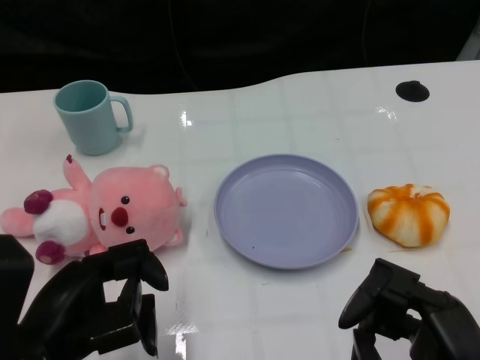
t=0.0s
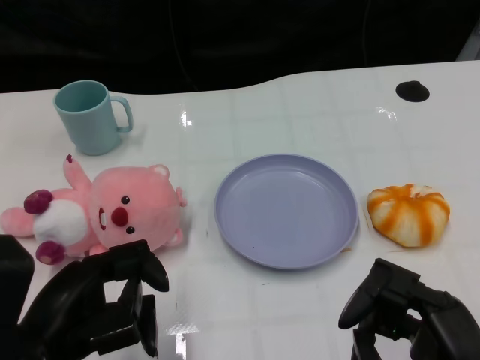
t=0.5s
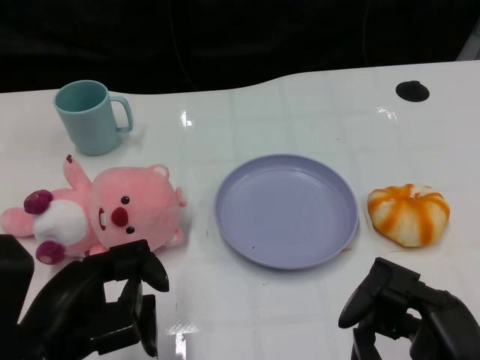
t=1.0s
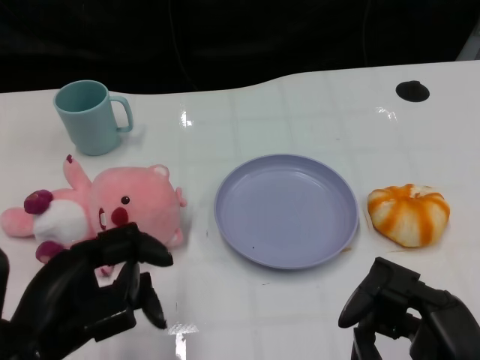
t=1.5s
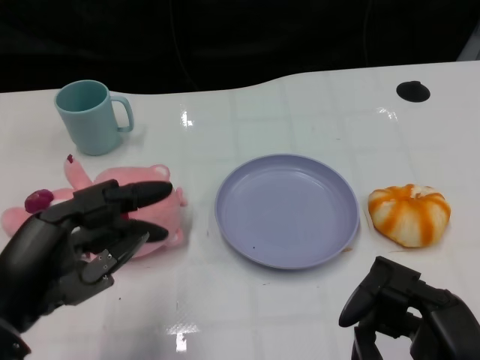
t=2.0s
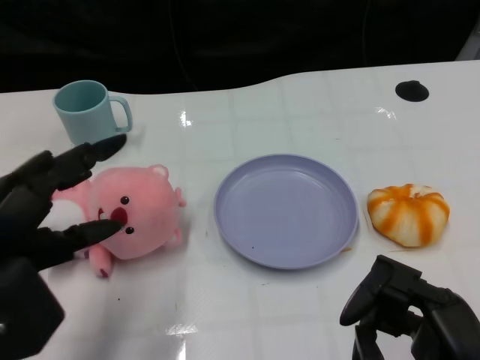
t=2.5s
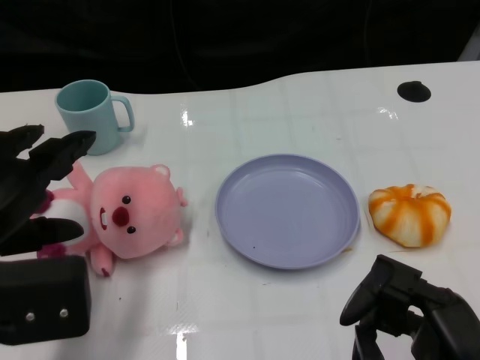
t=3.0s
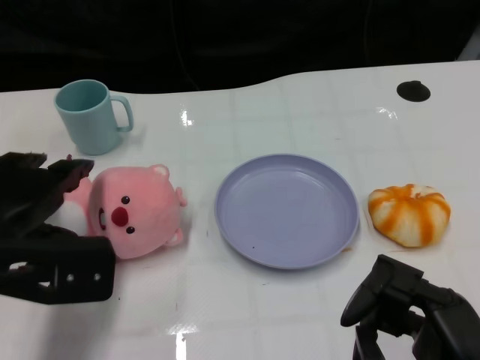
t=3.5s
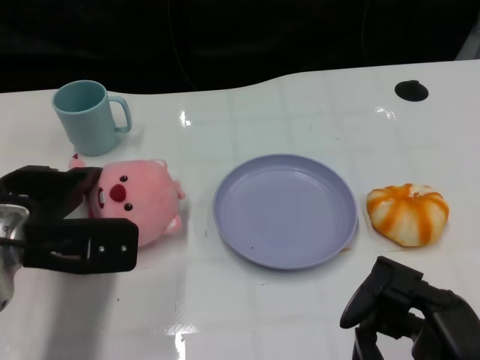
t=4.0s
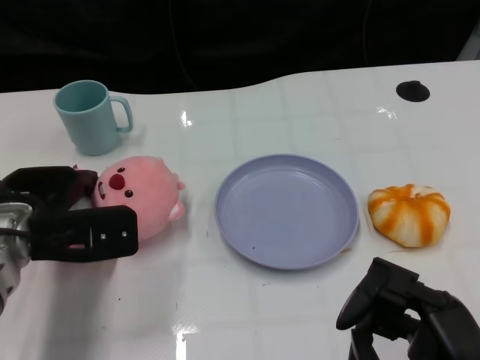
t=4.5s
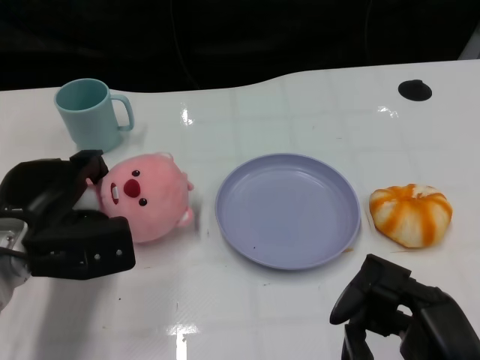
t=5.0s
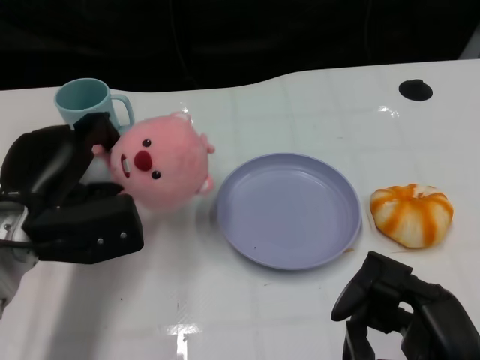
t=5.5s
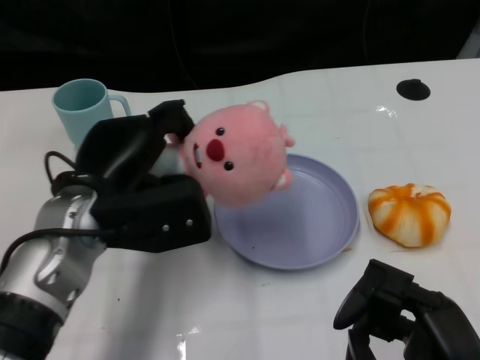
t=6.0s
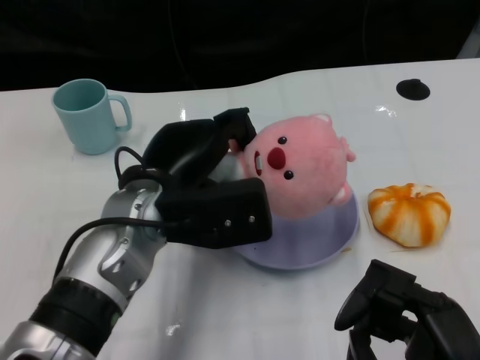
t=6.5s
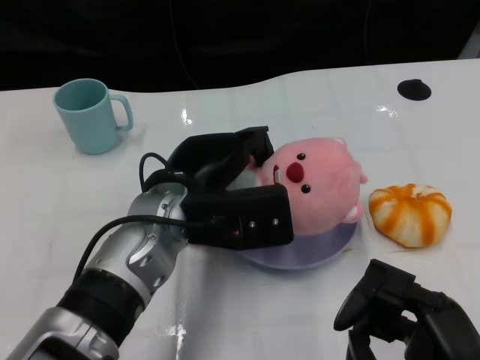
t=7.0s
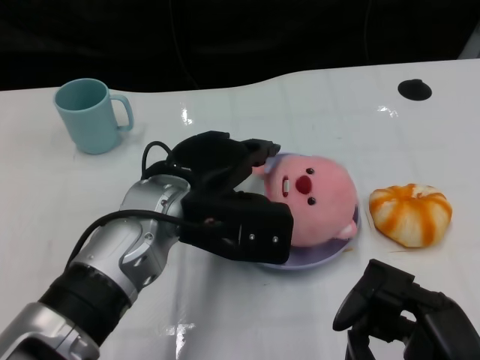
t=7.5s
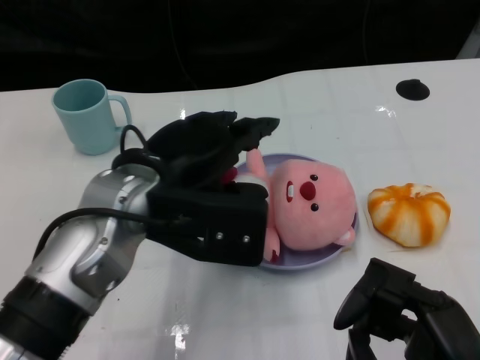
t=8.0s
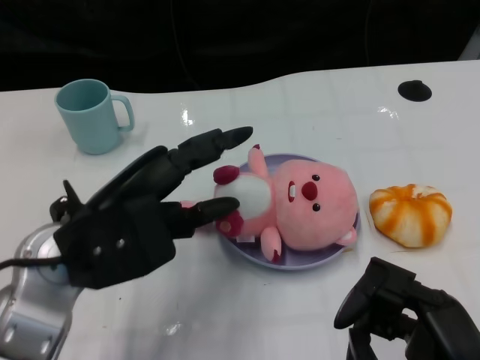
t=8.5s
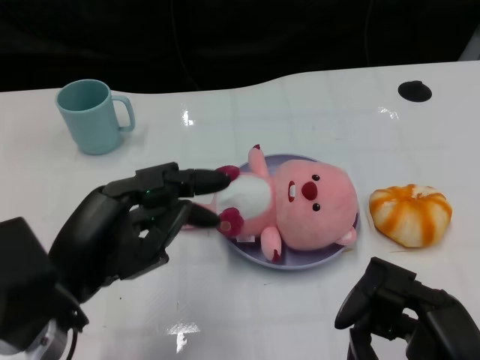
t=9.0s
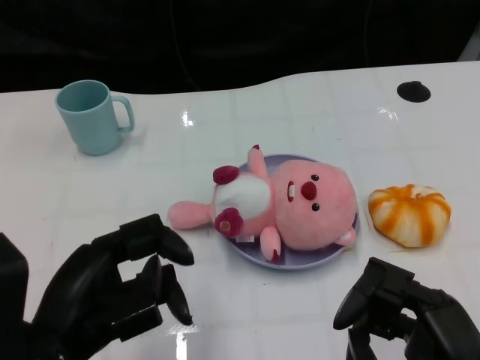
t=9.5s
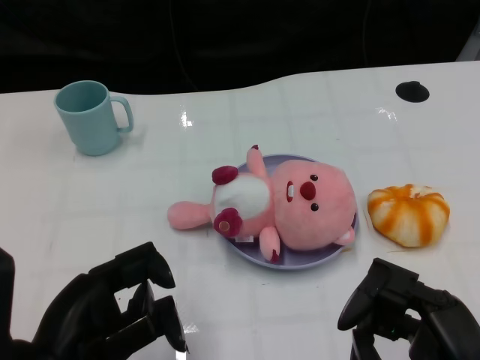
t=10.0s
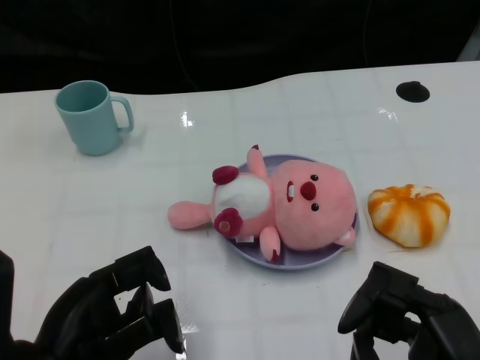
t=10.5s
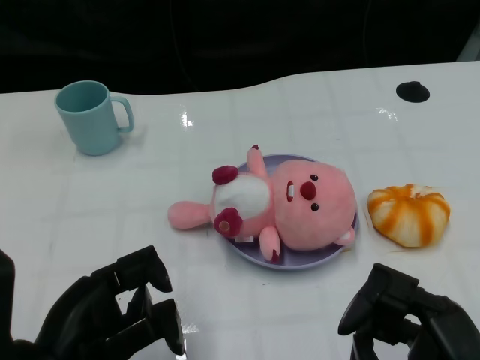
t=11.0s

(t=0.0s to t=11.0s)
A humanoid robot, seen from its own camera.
Task of the whole recording: Pick up the doll on one side of the plate and place it into the plate.
Step, t=1.5s - t=5.0s: Grasp the pink doll with the left gripper.
Step, t=5.5s - t=7.5s: Place the pink doll into the plate with the left gripper.
t=2.0s - t=3.5s: The left hand shifts roughly 10 cm forward.
t=3.5s - t=5.5s: The left hand changes place by some 5 cm.
t=5.5s - t=7.5s: The left hand goes some 15 cm to the right.
t=7.5s - t=9.0s: The left hand shifts about 15 cm to the left and backward.
t=9.0s - t=11.0s: The left hand shifts by some 5 cm.

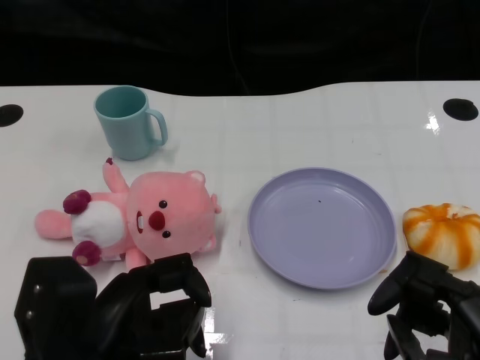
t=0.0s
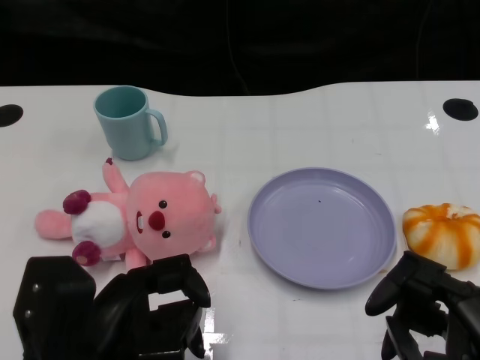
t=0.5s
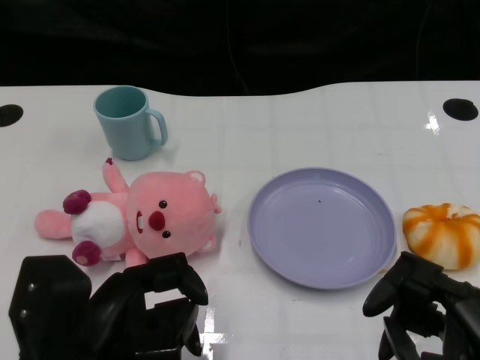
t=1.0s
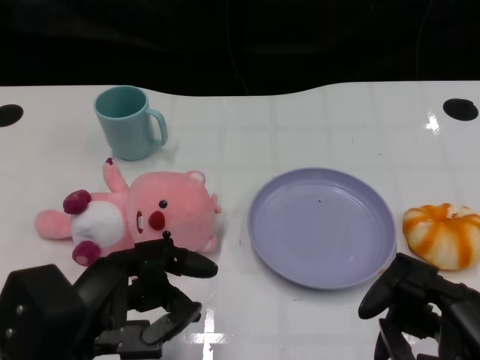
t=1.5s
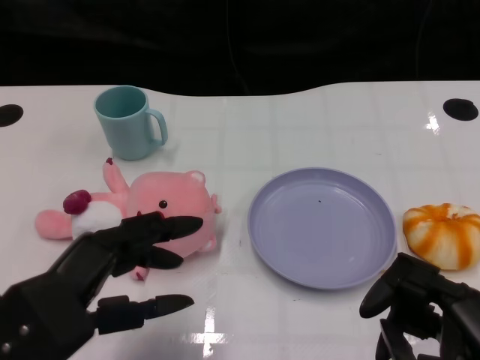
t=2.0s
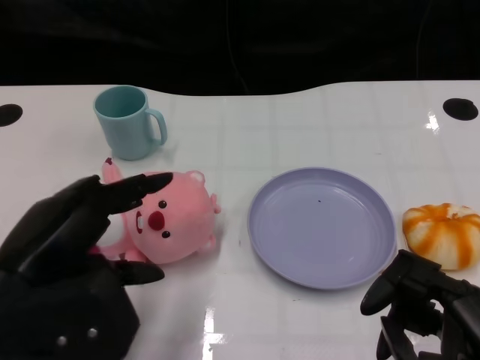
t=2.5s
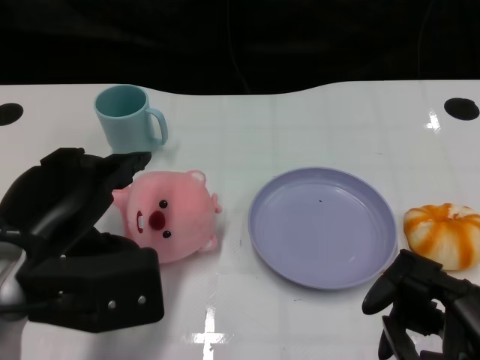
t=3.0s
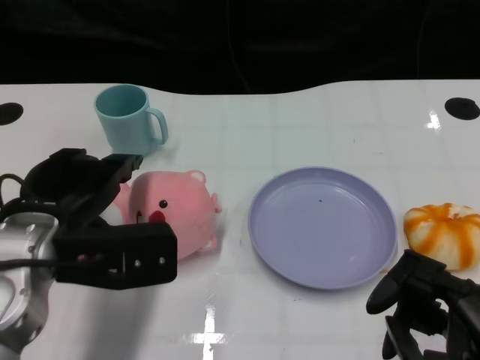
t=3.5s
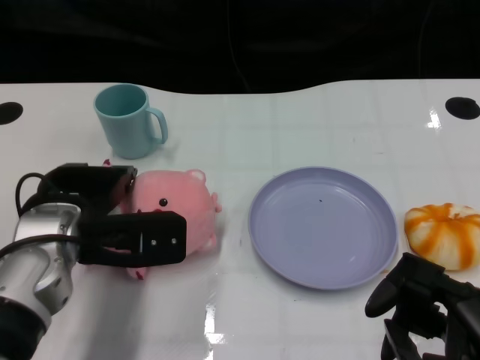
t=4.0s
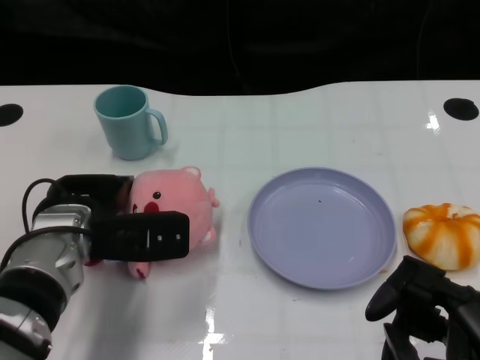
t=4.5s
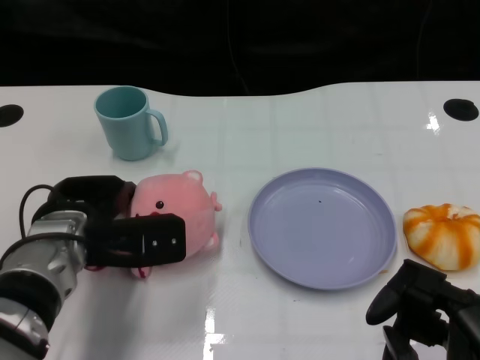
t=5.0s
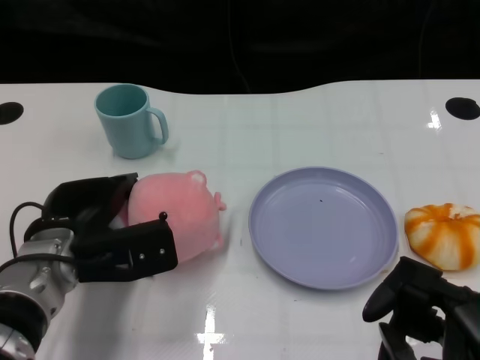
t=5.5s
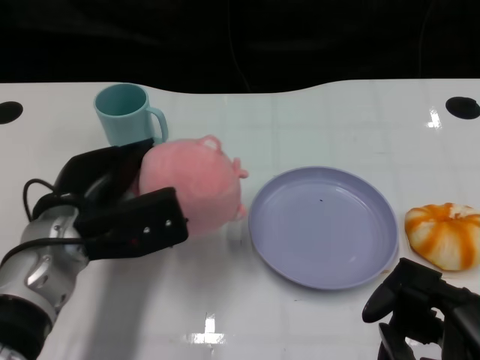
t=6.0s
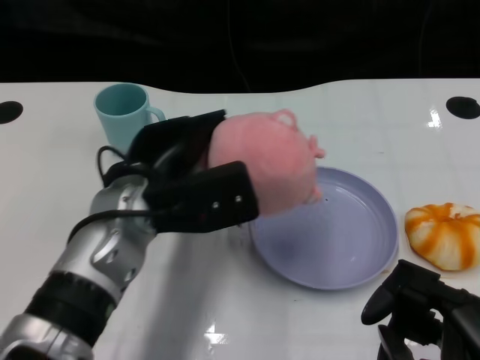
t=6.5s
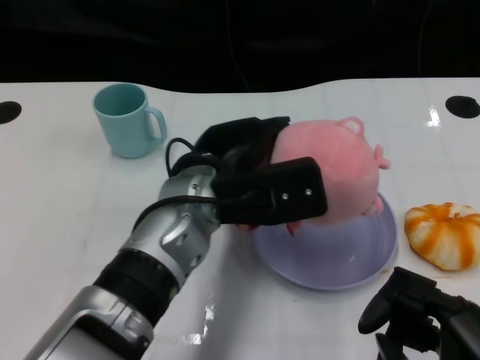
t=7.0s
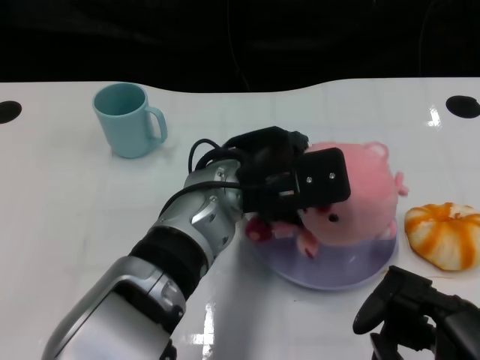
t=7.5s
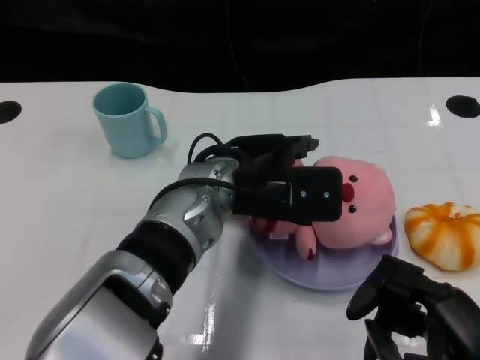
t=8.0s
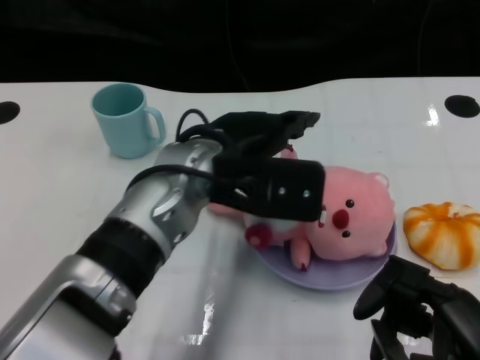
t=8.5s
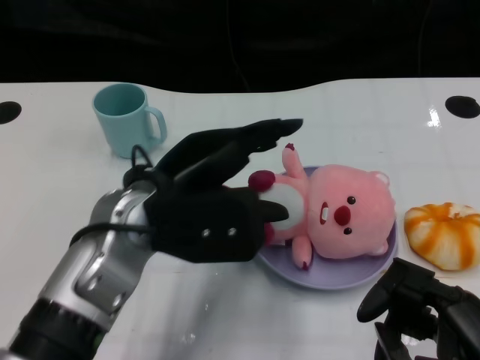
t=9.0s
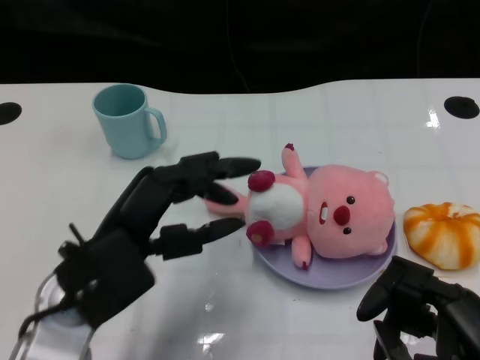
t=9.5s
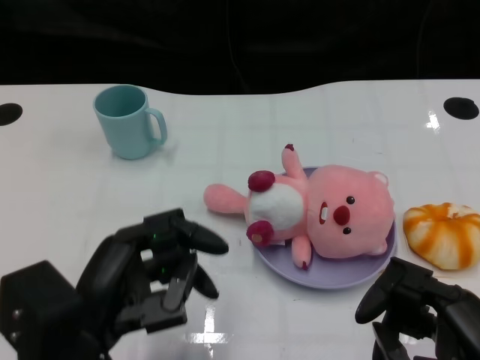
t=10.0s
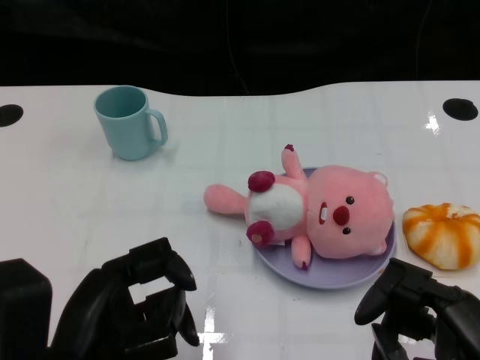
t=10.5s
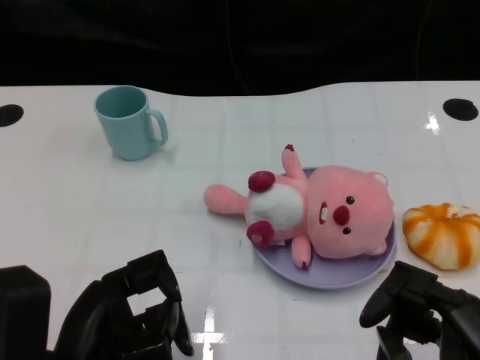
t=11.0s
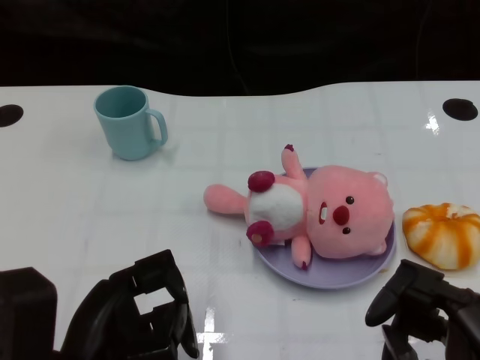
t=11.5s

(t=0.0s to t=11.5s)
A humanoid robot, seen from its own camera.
Task of the whole recording: Pick up the doll on one side of the plate and place it into the plate.
Step, t=1.0s - t=5.5s: Grasp the pink doll with the left gripper.
Step, t=6.0s - t=8.0s: Place the pink doll into the plate with the left gripper.
t=2.0s - t=4.0s: The left hand shifts about 15 cm forward.
t=6.0s - t=7.5s: The left hand moves to the right, approximately 15 cm.
t=7.5s - t=9.5s: The left hand travels to the left and backward by roughly 15 cm.
t=9.5s - t=11.5s: The left hand travels backward by some 10 cm.

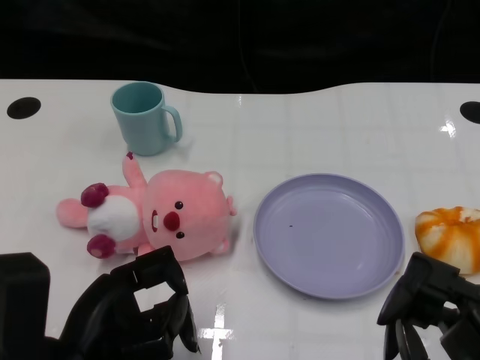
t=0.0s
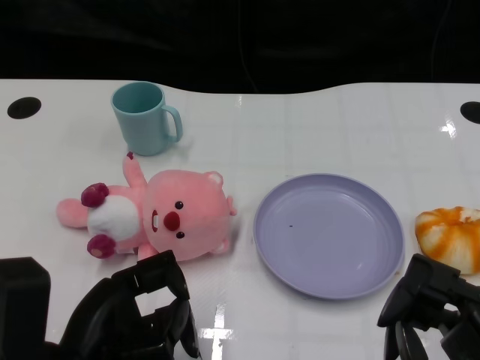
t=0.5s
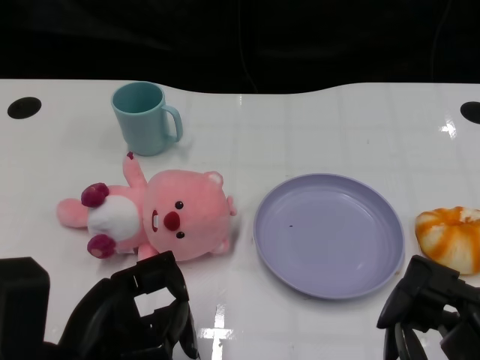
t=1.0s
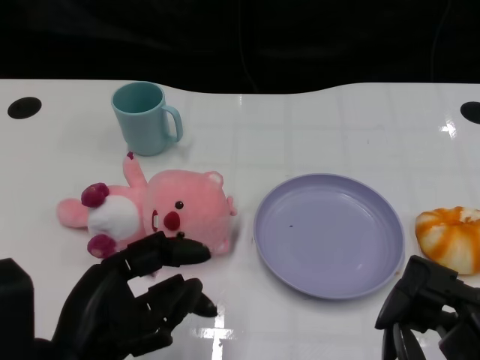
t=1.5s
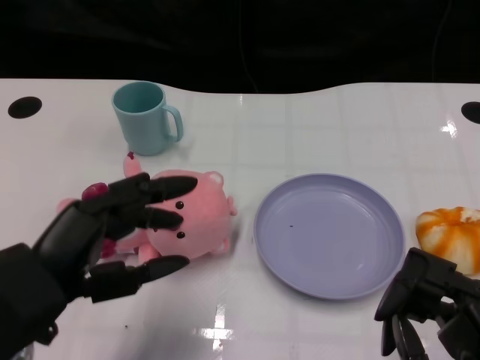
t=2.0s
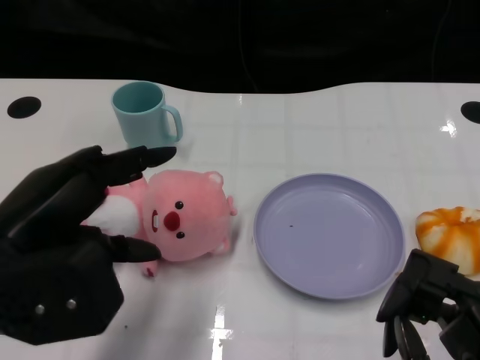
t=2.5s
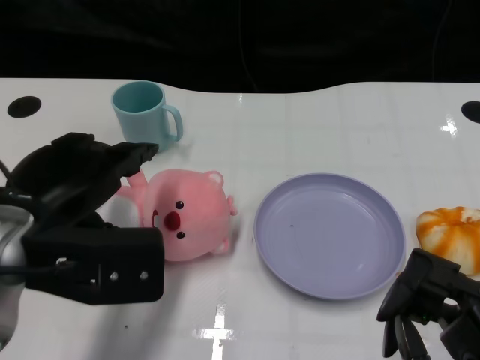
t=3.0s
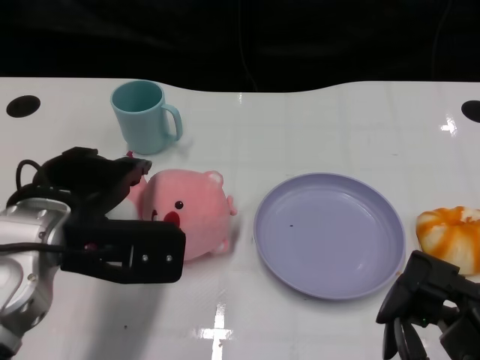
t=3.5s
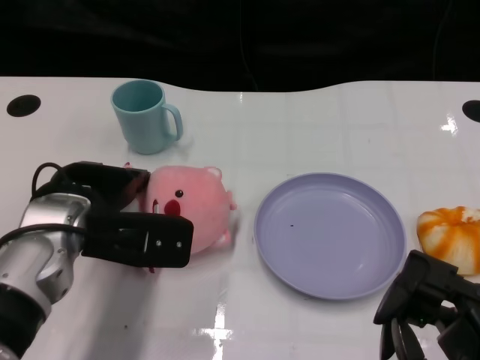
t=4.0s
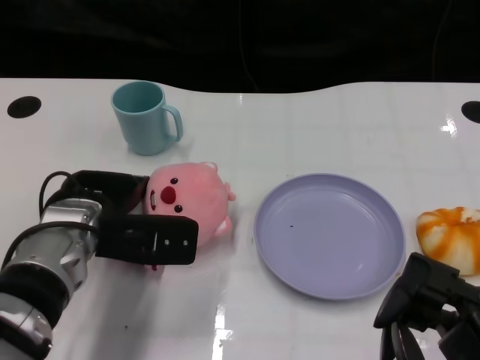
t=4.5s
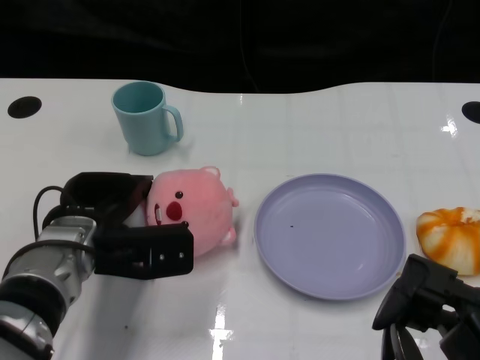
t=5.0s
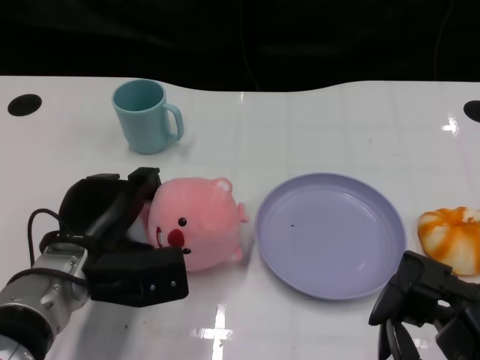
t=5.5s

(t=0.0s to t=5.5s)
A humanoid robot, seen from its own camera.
Task of the whole recording: Pick up the doll on one side of the plate and place it into the plate.
t=2.0s - t=3.5s: The left hand goes about 10 cm forward.
t=3.5s - t=5.5s: The left hand is displaced downward by roughly 10 cm.
